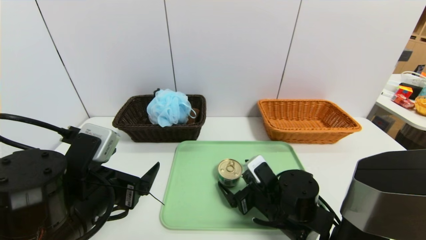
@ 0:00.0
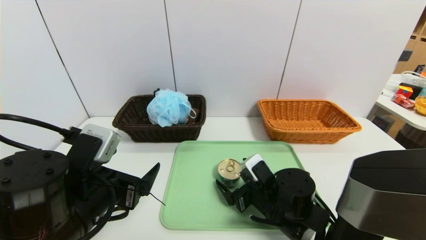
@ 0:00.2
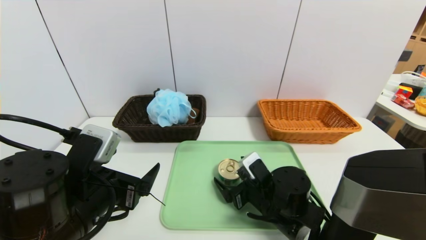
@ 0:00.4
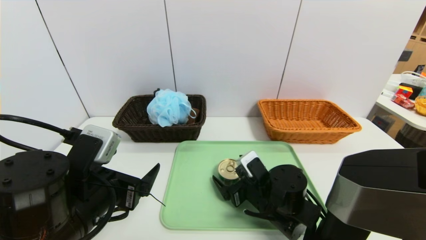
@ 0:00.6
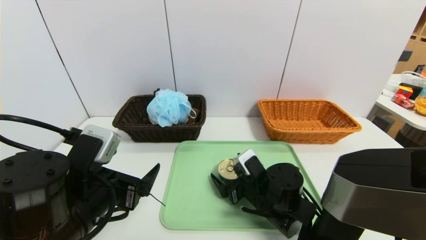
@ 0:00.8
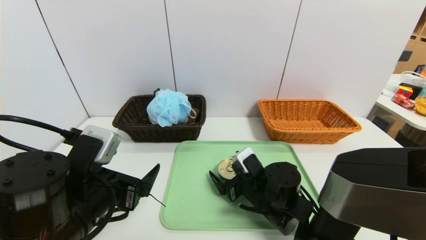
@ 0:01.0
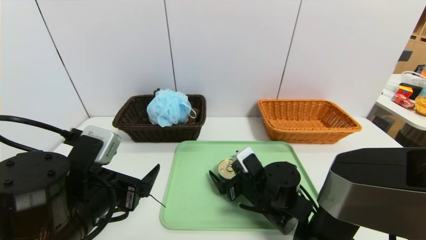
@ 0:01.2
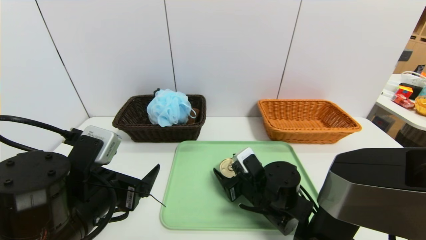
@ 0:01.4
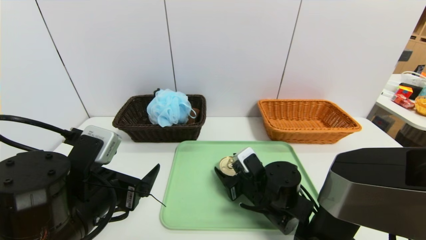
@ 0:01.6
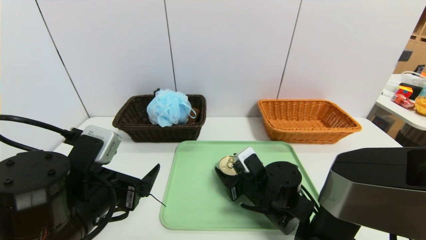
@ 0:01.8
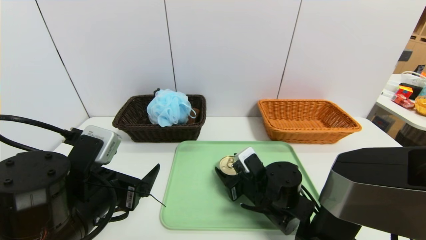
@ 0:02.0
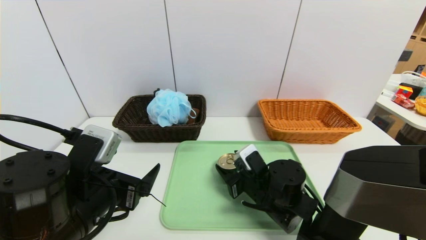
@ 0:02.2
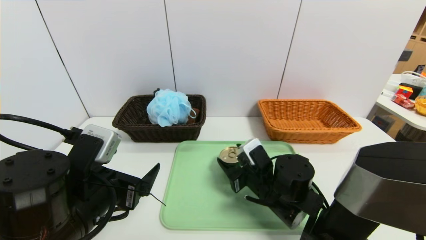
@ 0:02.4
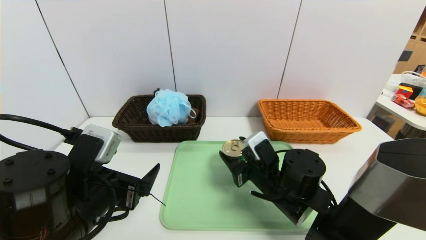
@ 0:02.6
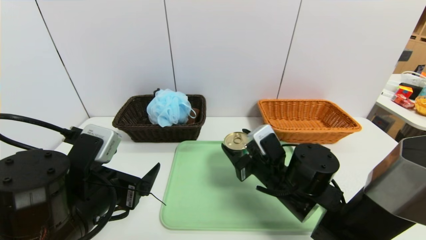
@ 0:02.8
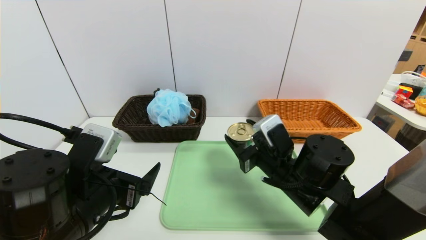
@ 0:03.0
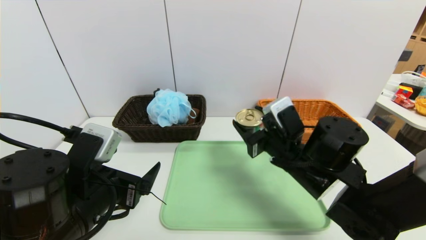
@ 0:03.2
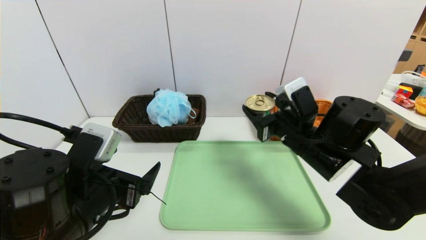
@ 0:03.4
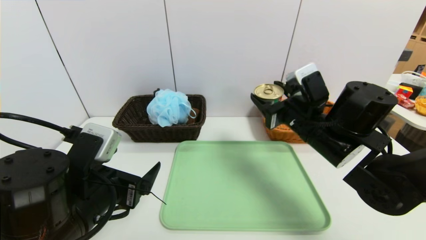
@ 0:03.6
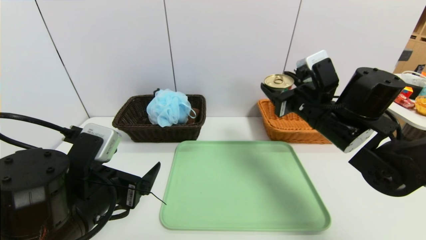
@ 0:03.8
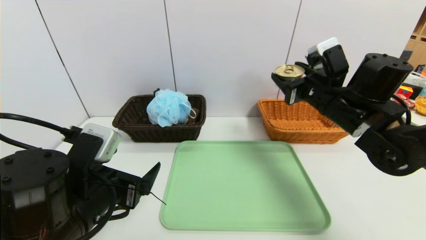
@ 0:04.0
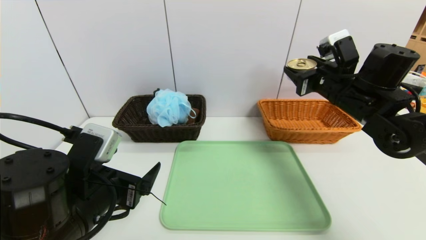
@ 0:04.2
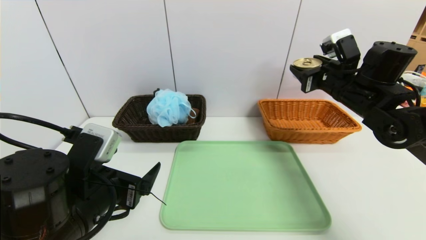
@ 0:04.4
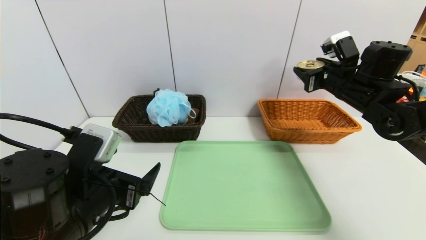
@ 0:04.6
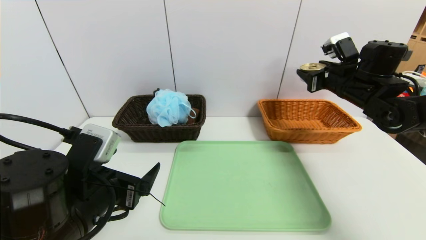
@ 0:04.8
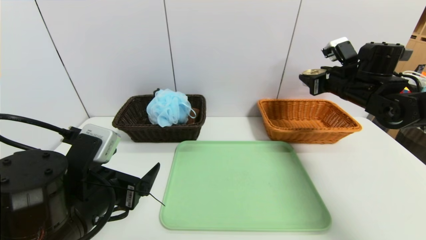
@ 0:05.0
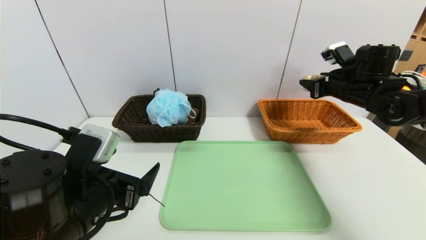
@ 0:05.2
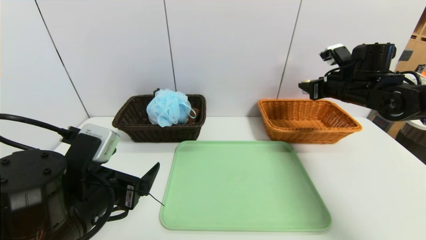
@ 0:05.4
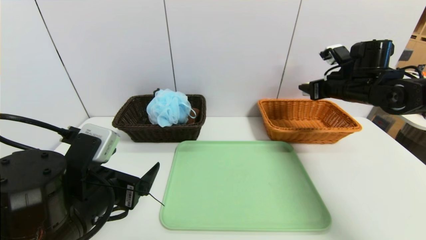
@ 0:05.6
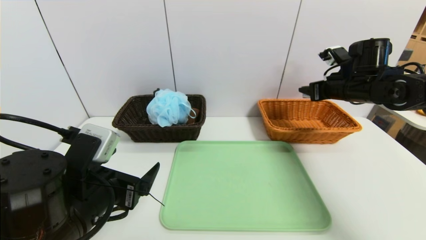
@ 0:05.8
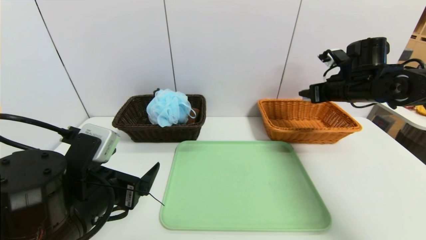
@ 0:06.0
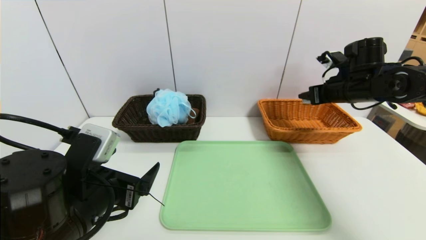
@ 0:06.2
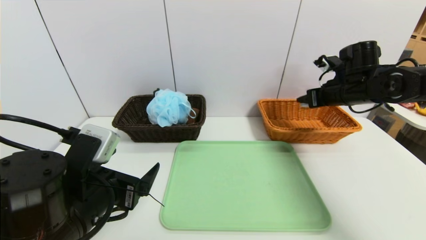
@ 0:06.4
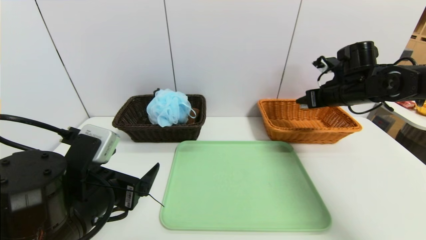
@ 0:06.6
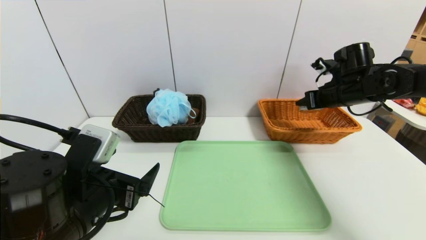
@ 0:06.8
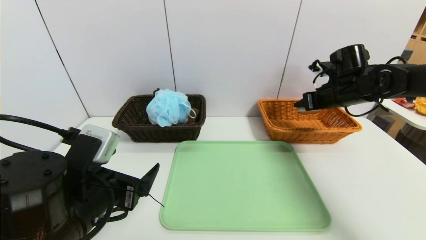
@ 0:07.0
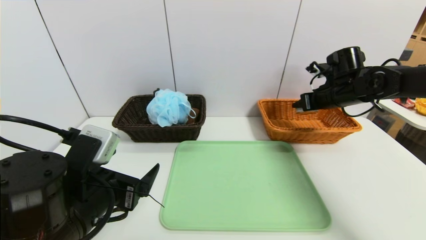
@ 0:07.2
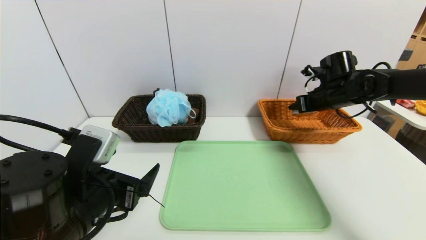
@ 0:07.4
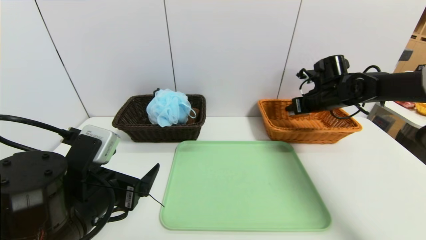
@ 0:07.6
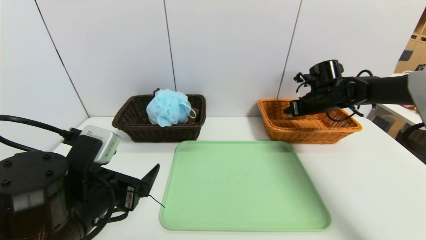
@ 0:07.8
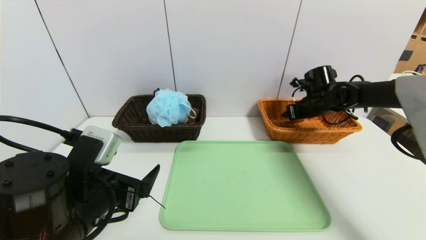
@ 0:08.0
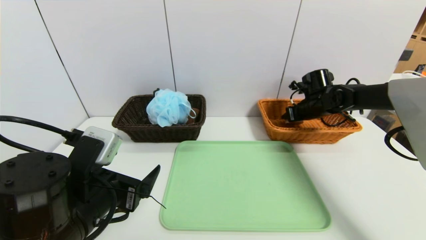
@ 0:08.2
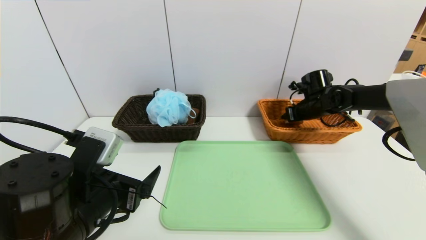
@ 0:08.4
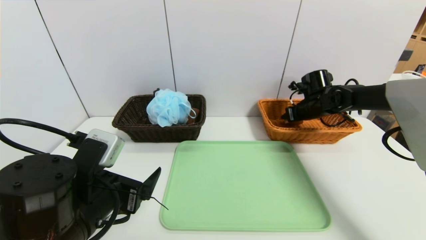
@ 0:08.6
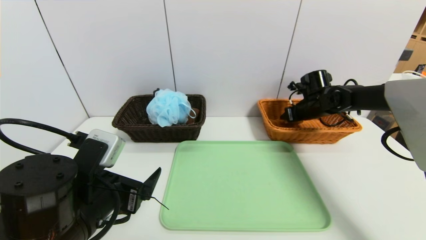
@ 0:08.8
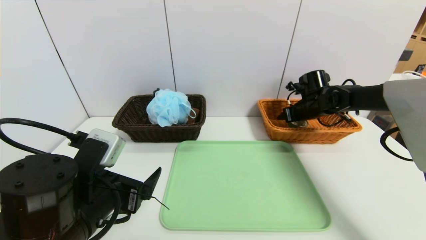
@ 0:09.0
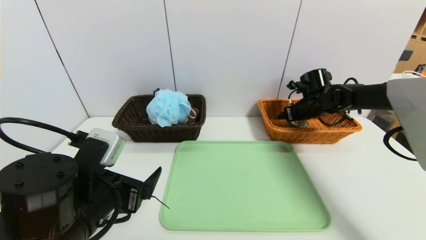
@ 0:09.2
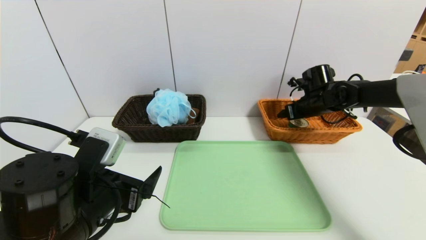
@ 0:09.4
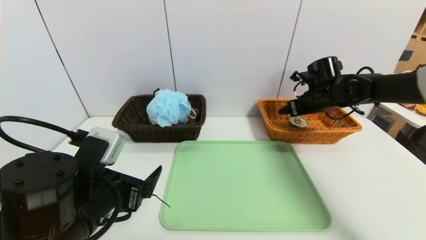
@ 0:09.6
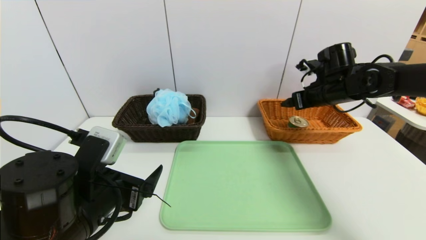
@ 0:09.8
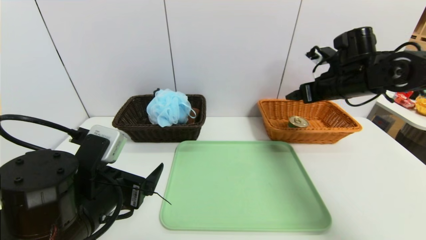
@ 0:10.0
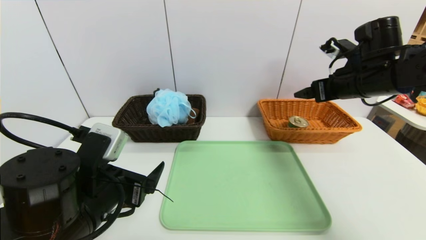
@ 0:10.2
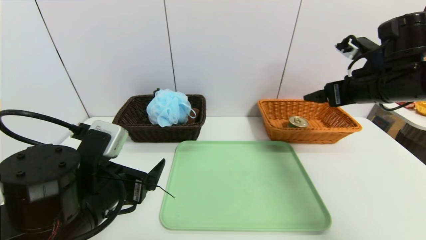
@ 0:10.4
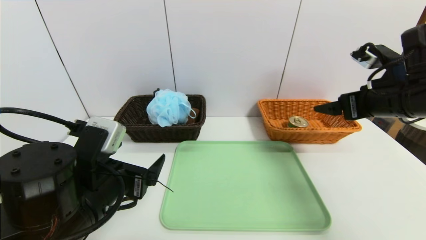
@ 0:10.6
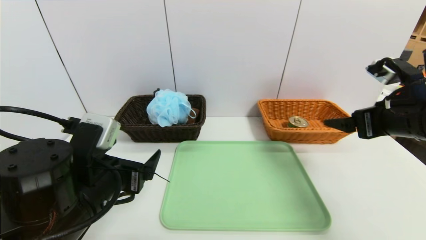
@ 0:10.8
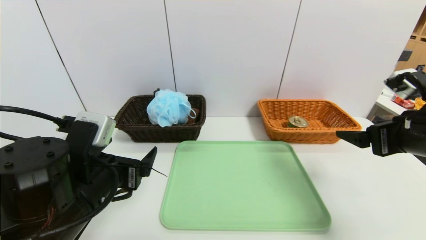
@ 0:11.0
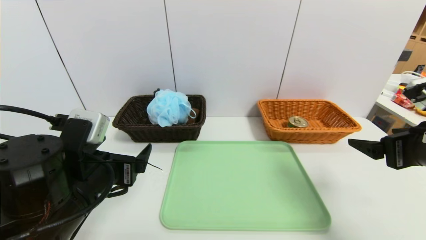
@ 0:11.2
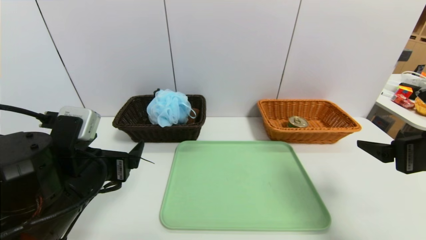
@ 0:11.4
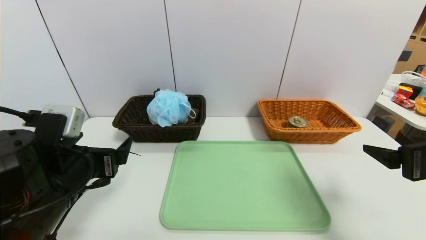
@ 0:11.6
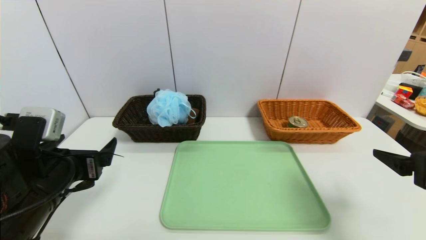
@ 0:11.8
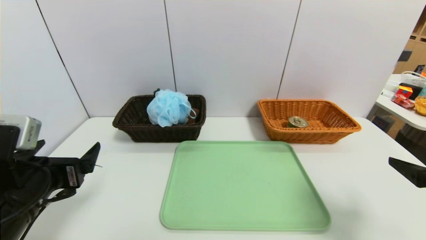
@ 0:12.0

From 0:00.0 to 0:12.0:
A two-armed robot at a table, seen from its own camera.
Task of the whole recording: place the food in the right basket with the right gripper, and place the non food items in the left basket with the left gripper.
Step, from 0:00.0 to 0:10.0: Grasp the can and put it in the right basket.
From 0:00.0 to 0:01.6: The right gripper closes its fingers.
From 0:01.6 to 0:03.0: The right gripper heads upward, covering about 10 cm.
From 0:03.0 to 0:04.4: The right gripper is displaced to the right, upward and forward by approximately 20 cm.
From 0:04.4 to 0:06.0: The right gripper shifts by some 5 cm.
From 0:06.0 to 0:07.6: The right gripper shifts about 5 cm forward.
From 0:07.6 to 0:09.0: The grippers stay close to where they were, moving slightly.
From 0:09.0 to 0:10.4: The right gripper moves backward and upward, some 20 cm.
From 0:10.4 to 0:12.0: The left gripper goes about 10 cm to the left; the right gripper travels backward by approximately 20 cm.

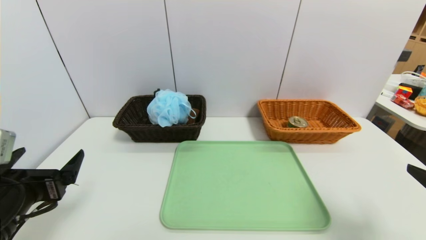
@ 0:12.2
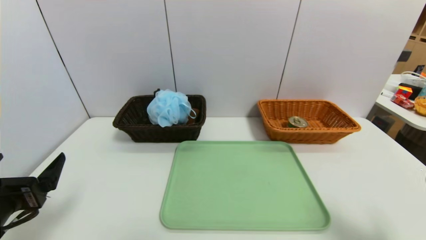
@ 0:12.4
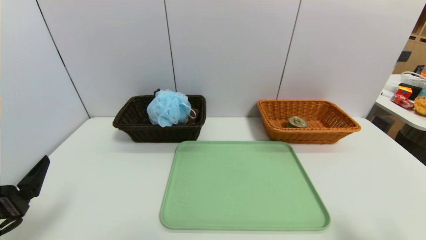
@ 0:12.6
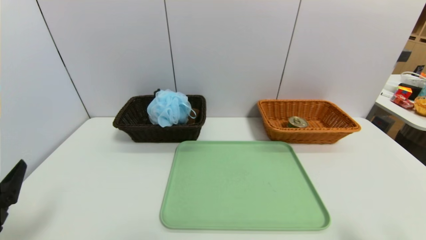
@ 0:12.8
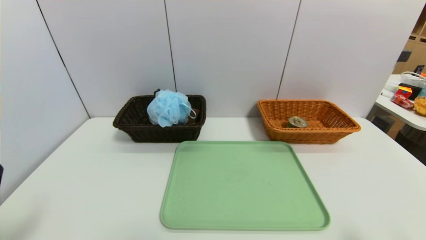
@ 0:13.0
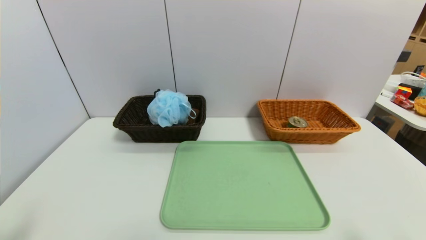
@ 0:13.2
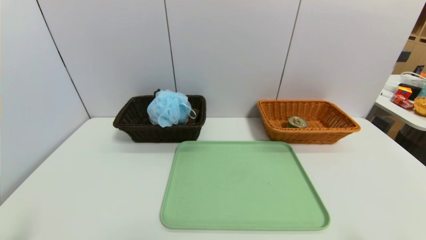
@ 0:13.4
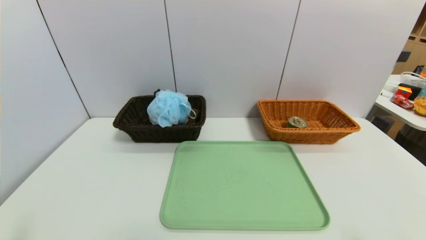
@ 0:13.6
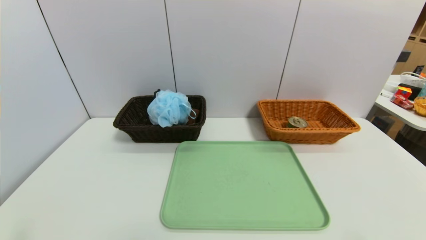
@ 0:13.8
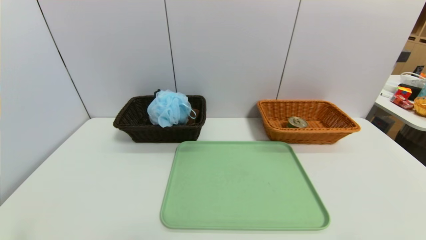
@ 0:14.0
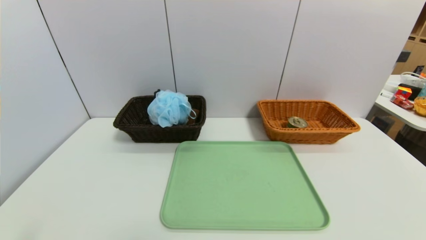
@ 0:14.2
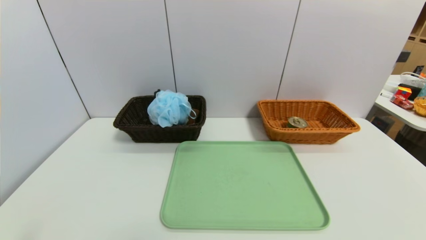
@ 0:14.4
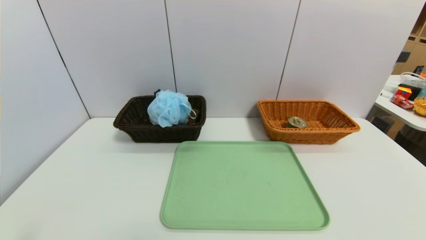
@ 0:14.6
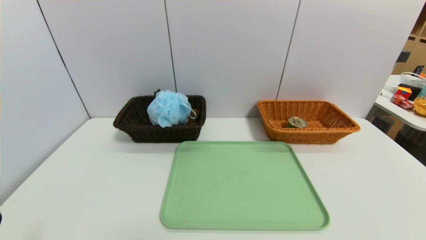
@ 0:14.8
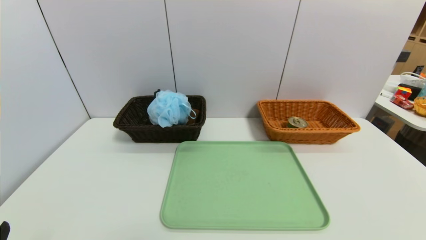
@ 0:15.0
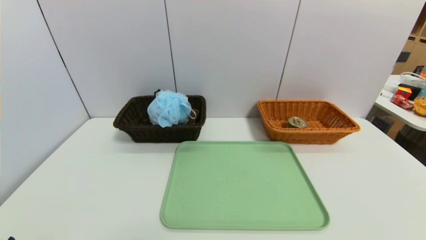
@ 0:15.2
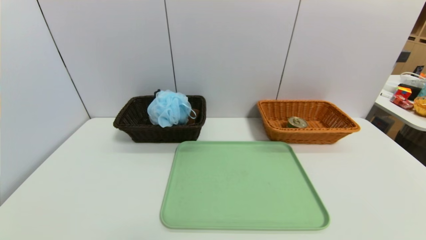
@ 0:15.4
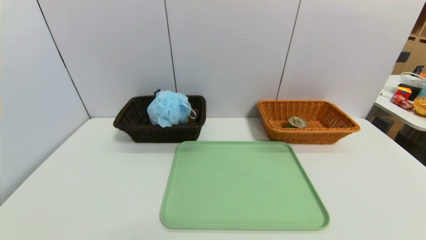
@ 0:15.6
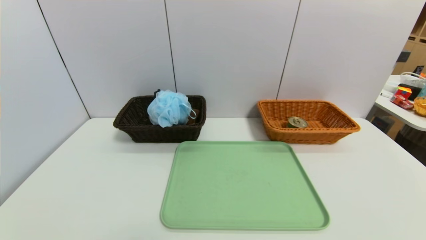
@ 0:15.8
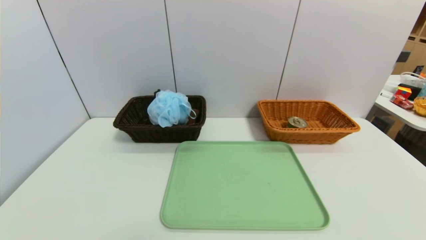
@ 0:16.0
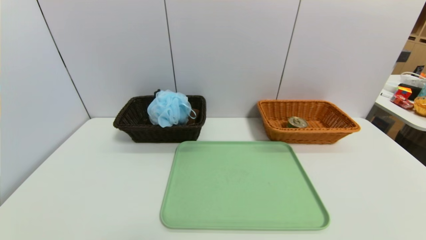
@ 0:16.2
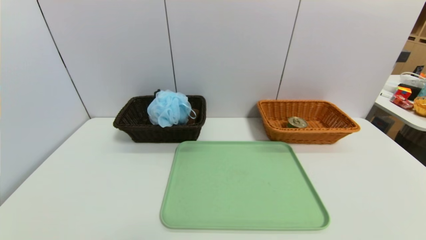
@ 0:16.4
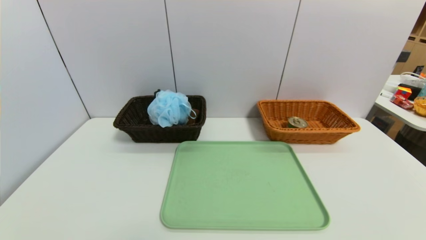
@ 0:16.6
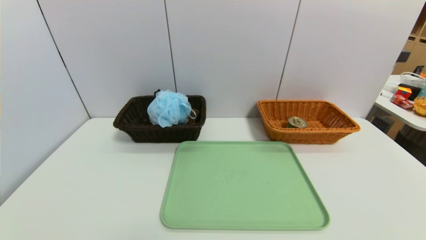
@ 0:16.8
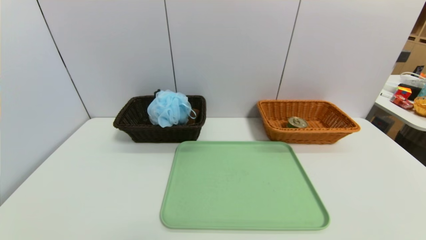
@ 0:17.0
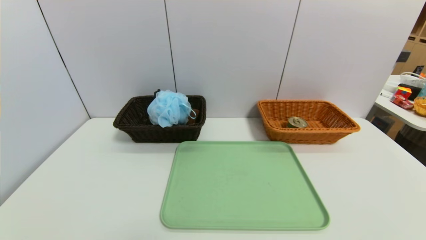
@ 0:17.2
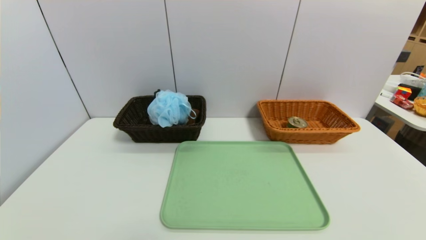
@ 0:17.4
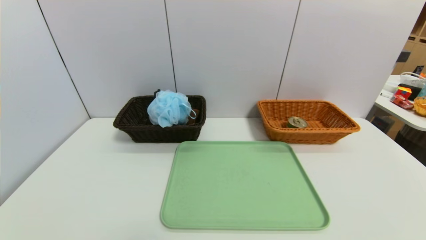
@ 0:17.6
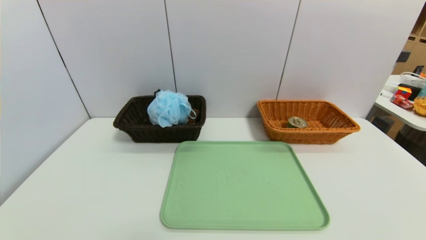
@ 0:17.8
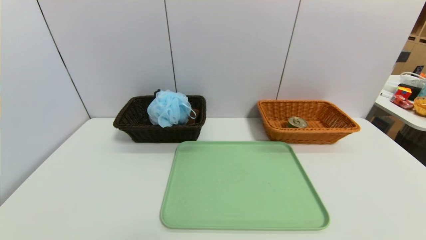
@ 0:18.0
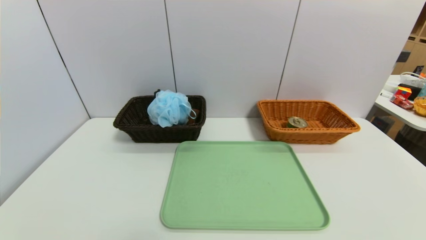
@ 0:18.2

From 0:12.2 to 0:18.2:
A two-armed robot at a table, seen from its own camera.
Task of the whole recording: place the food in the right basket with the right gripper, and place the non food items in the left basket with the left gripper.
From 0:12.2 to 0:13.8: The left gripper is displaced backward by roughly 10 cm. The right gripper shifts approximately 10 cm backward and downward.
